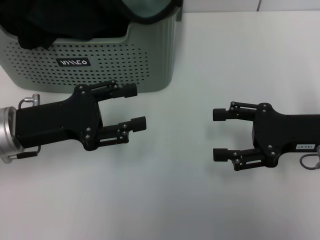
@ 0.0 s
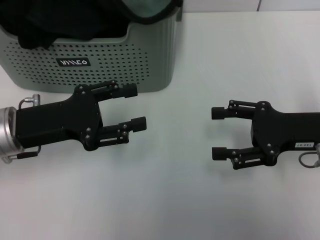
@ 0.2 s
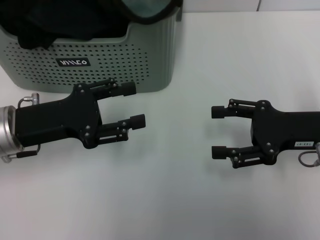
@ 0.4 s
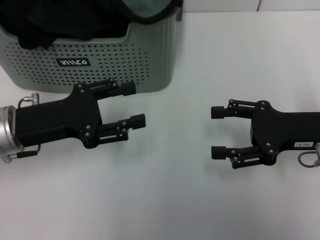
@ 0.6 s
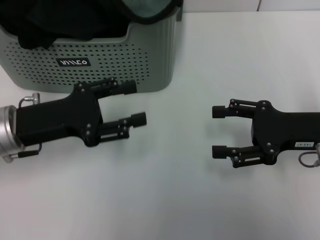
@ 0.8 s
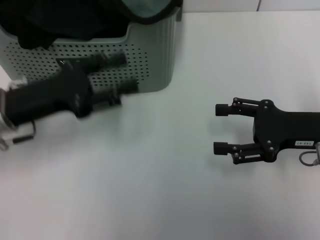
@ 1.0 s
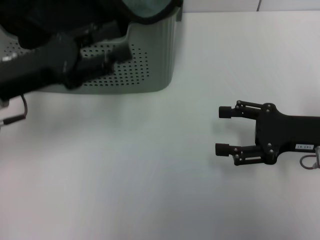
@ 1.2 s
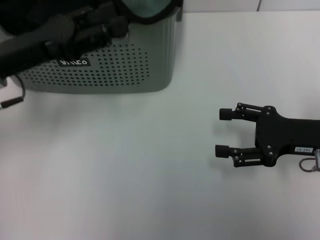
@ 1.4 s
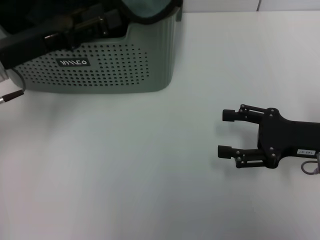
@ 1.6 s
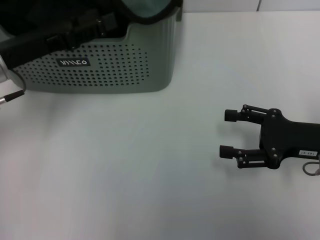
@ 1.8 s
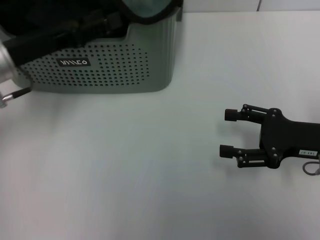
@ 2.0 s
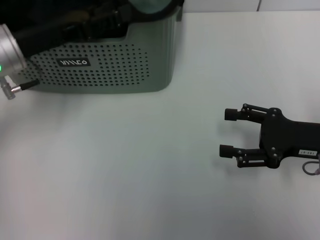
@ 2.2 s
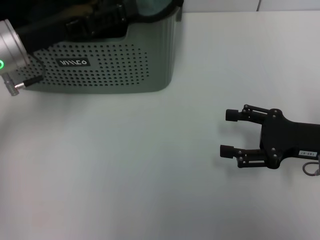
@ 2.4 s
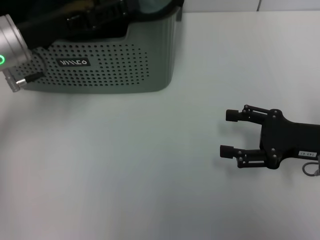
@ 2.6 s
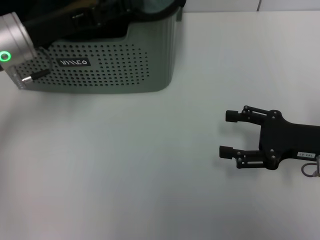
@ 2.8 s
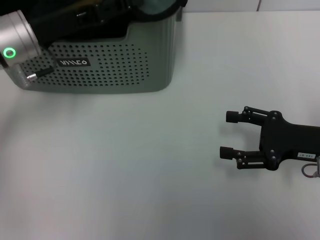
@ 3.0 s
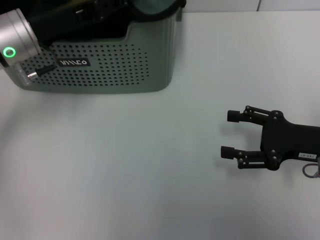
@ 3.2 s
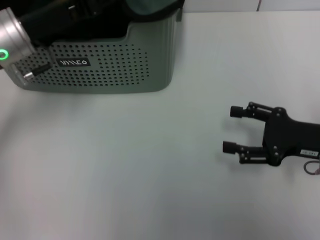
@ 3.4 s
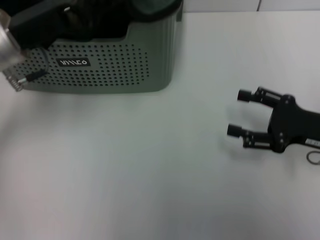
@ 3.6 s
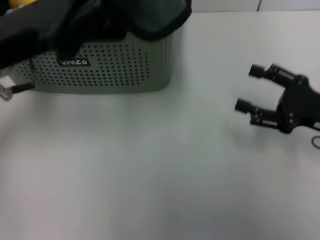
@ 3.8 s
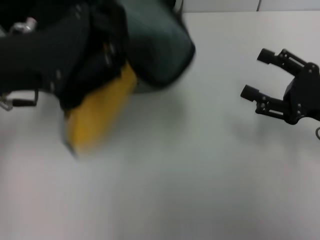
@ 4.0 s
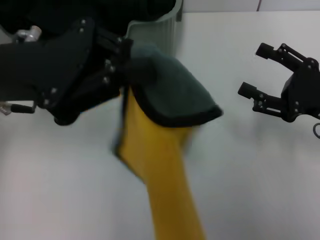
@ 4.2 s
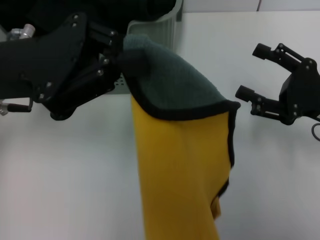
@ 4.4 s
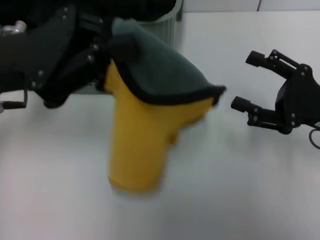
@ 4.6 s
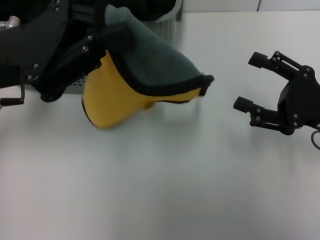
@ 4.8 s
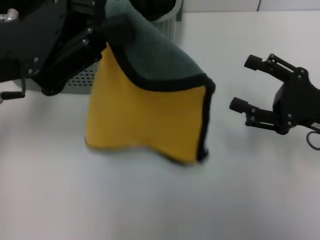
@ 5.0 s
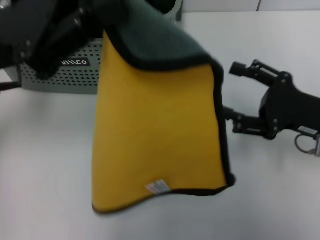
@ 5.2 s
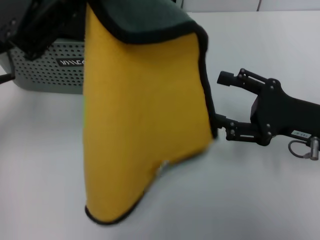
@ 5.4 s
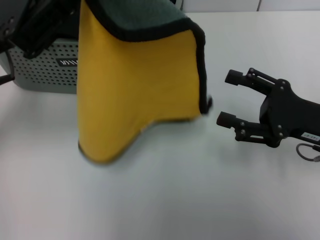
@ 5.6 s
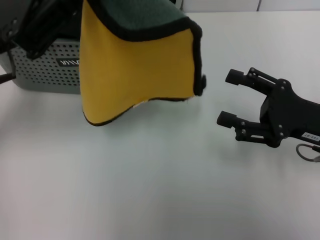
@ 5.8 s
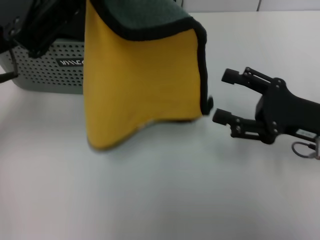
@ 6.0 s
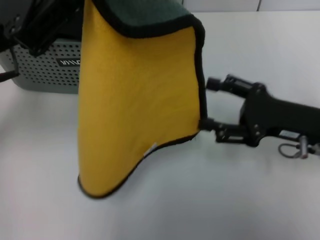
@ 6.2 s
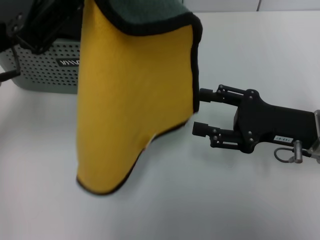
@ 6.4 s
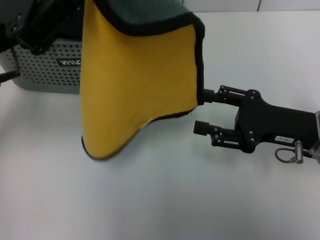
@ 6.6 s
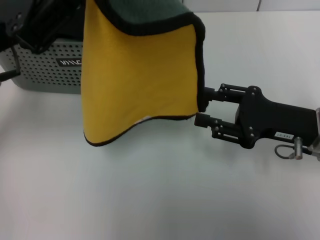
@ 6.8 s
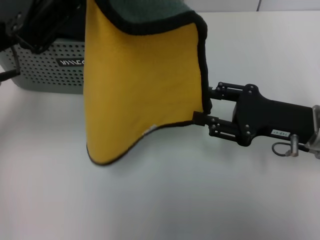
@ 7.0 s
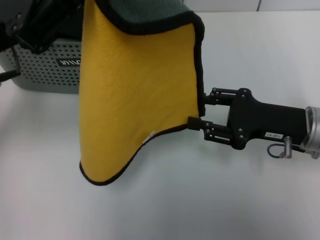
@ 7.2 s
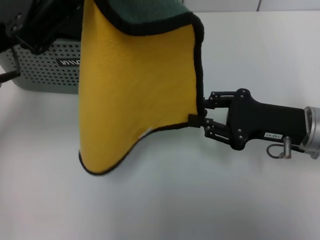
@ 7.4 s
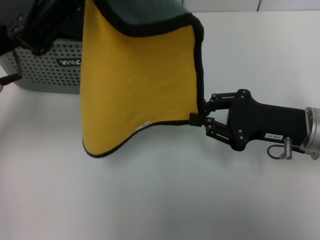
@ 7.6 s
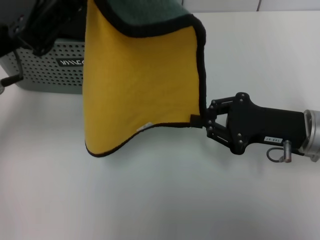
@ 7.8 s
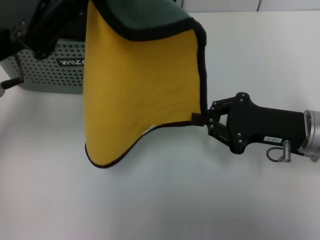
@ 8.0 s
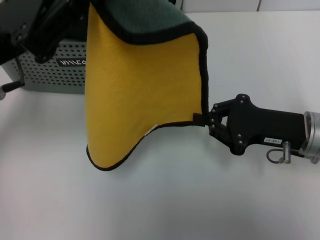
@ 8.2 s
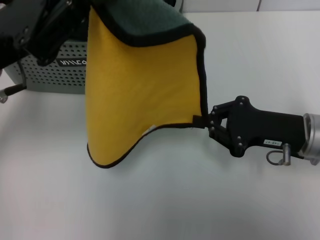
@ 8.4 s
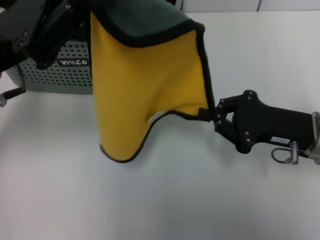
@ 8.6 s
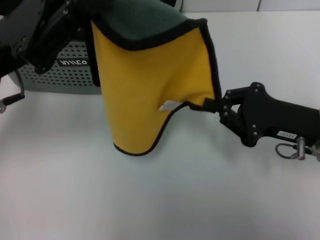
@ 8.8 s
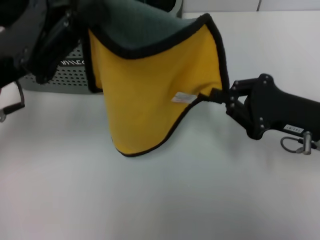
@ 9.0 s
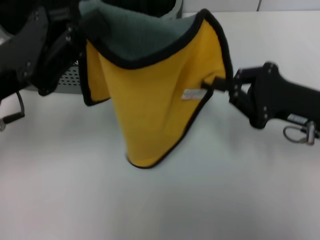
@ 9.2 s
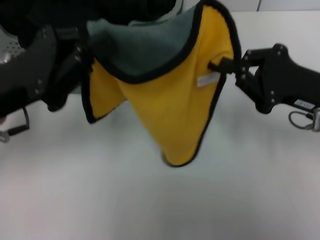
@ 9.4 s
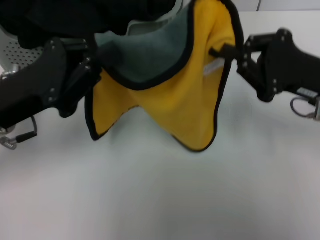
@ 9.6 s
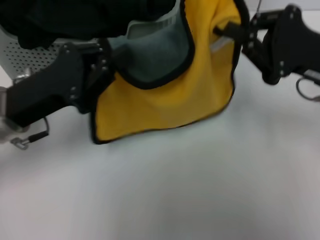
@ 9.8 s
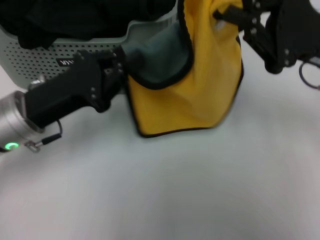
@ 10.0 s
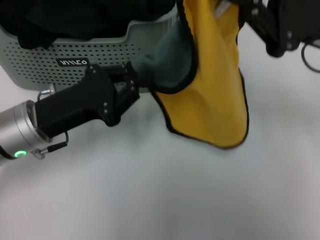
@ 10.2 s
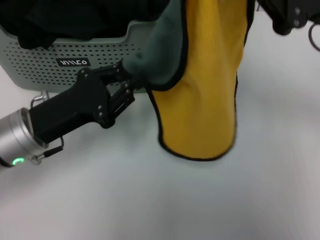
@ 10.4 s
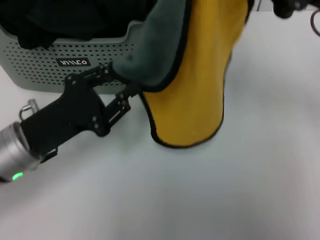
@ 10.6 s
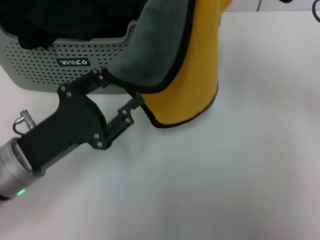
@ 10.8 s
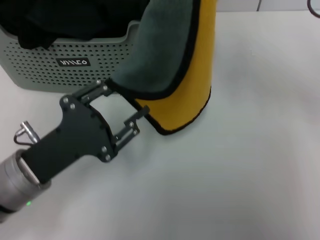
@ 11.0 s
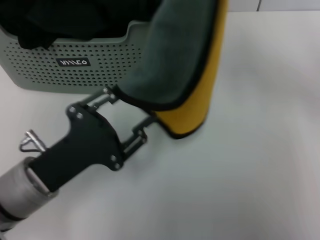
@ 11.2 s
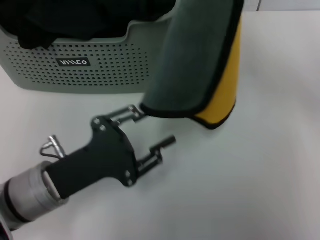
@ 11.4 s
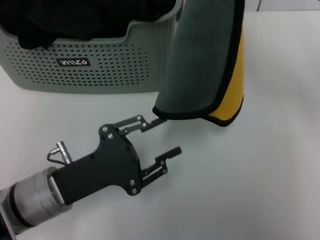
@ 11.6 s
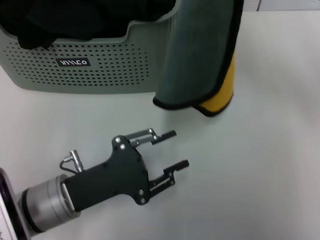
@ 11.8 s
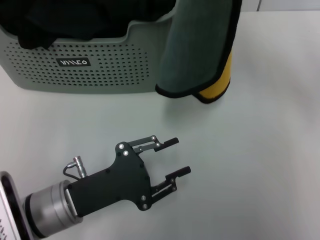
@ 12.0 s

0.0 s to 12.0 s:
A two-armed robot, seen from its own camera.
Task of the whole recording: pick up the towel from the storage box and lay it flat on the table.
Step, 0.0 to 3.2 s: Pick up a towel with the left gripper.
Step, 3.4 to 8.0 s: Spread the towel flat with the left gripper.
0.0 to 1.6 s: The left gripper travels upward by some 5 cm.
1.6 to 3.0 s: The left gripper shifts by roughly 5 cm.
3.0 to 4.4 s: The left gripper shifts about 5 cm backward, and closes.
6.0 to 7.6 s: The right gripper closes.
7.6 to 9.0 s: The right gripper closes up.
9.0 to 10.4 s: The right gripper moves upward, roughly 10 cm. Meanwhile the left gripper is displaced downward by roughly 10 cm.
10.4 to 12.0 s: The left gripper travels backward and downward by roughly 10 cm, and opens its fingers.

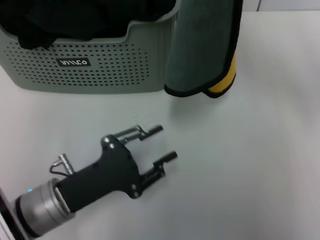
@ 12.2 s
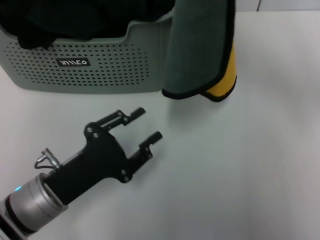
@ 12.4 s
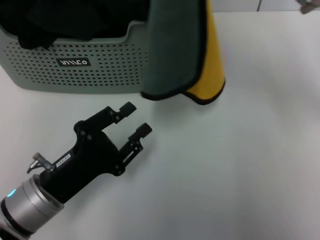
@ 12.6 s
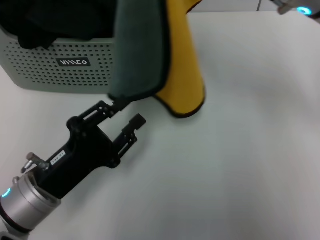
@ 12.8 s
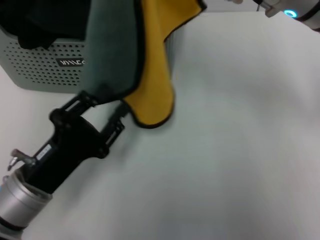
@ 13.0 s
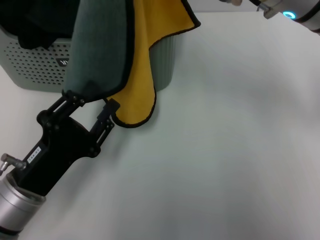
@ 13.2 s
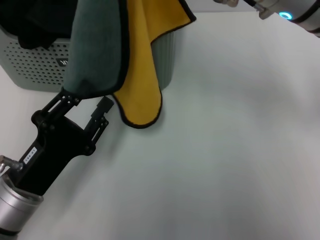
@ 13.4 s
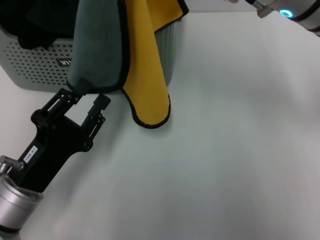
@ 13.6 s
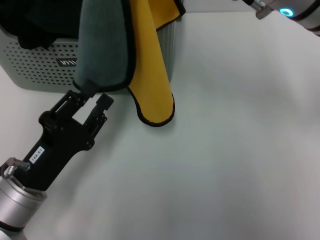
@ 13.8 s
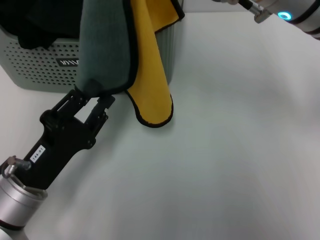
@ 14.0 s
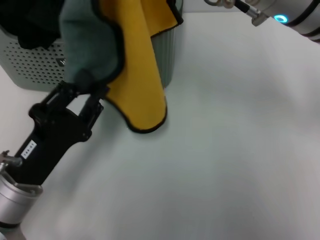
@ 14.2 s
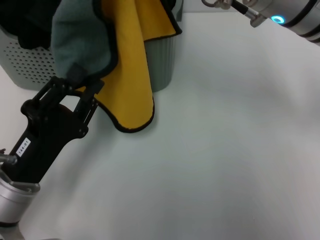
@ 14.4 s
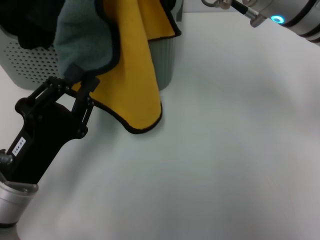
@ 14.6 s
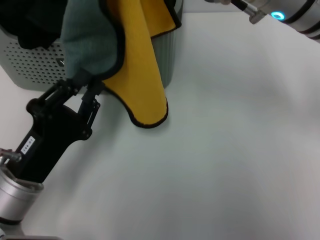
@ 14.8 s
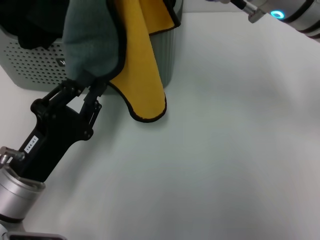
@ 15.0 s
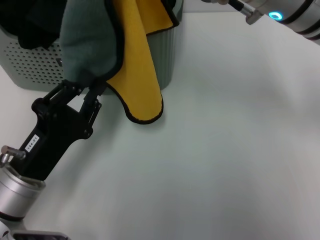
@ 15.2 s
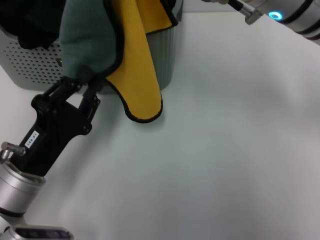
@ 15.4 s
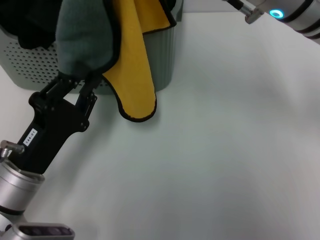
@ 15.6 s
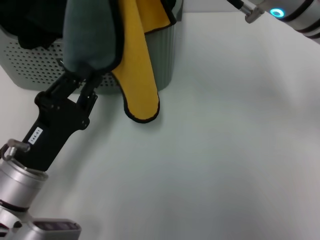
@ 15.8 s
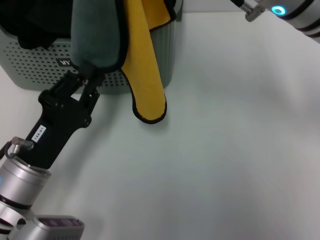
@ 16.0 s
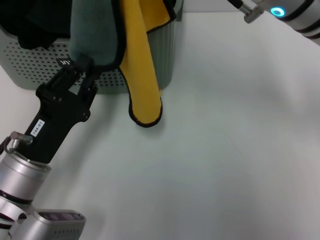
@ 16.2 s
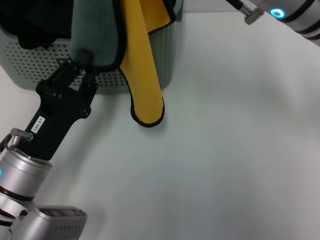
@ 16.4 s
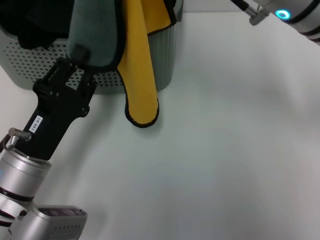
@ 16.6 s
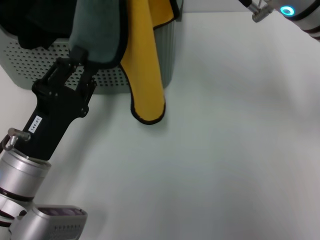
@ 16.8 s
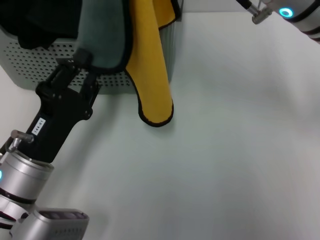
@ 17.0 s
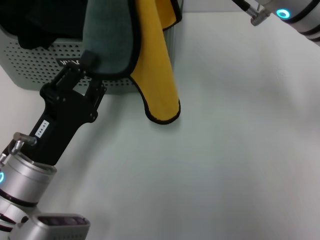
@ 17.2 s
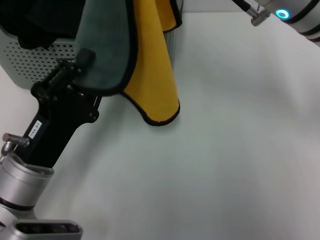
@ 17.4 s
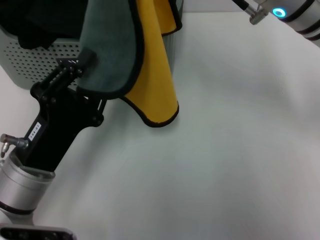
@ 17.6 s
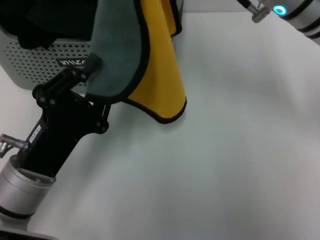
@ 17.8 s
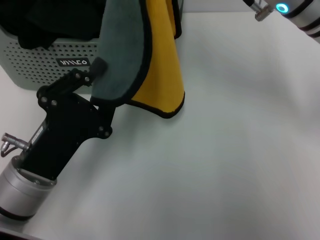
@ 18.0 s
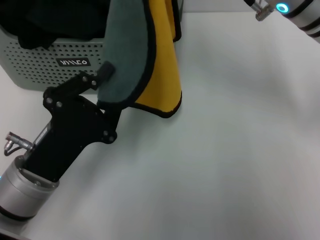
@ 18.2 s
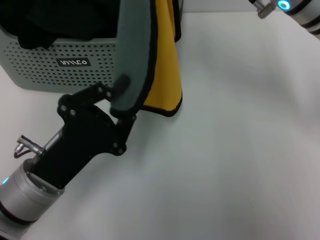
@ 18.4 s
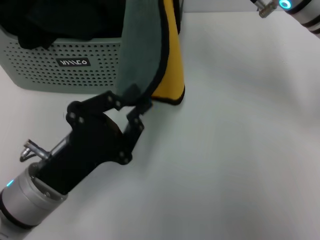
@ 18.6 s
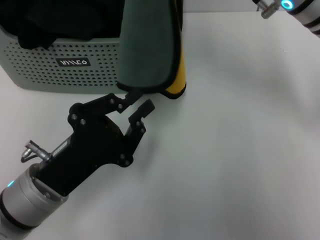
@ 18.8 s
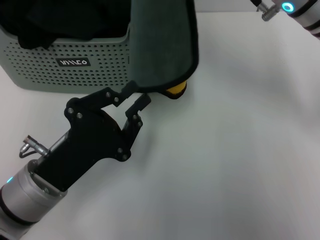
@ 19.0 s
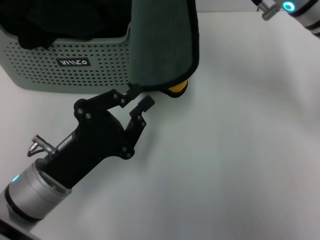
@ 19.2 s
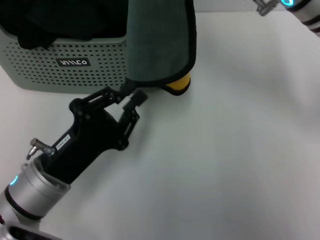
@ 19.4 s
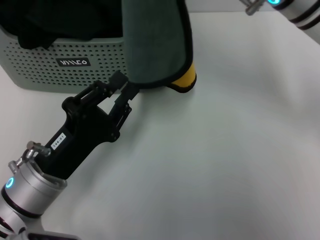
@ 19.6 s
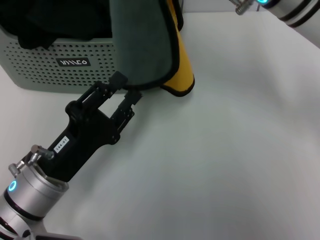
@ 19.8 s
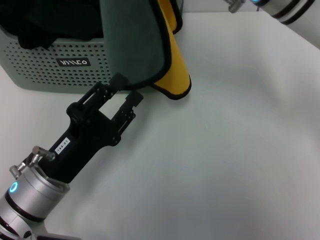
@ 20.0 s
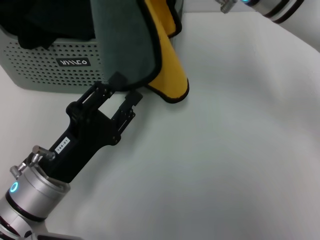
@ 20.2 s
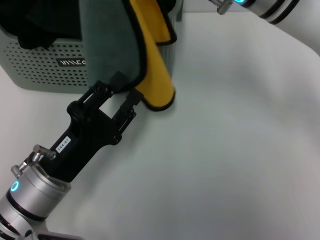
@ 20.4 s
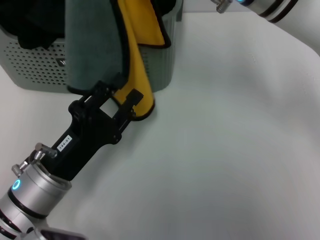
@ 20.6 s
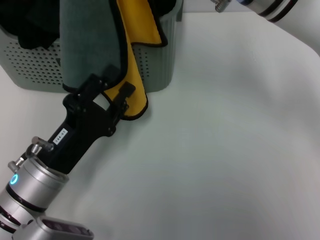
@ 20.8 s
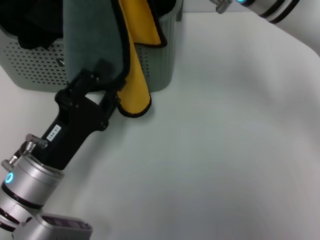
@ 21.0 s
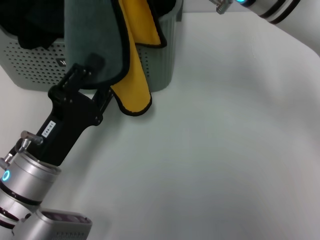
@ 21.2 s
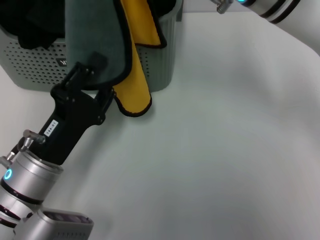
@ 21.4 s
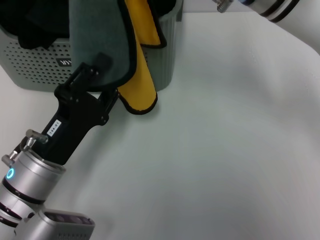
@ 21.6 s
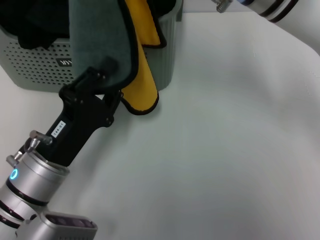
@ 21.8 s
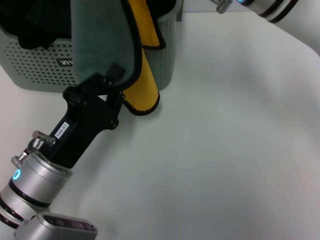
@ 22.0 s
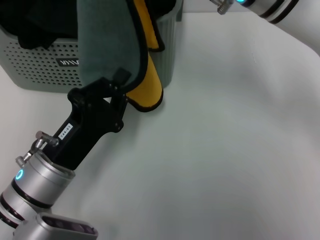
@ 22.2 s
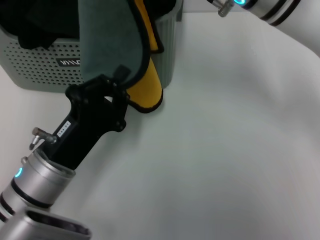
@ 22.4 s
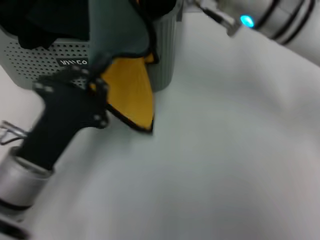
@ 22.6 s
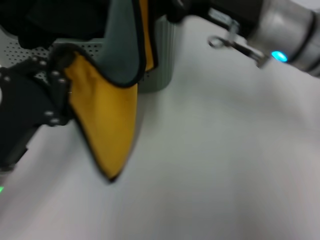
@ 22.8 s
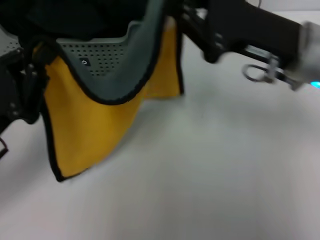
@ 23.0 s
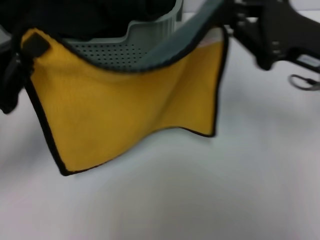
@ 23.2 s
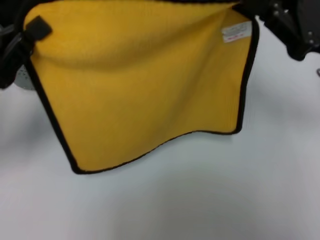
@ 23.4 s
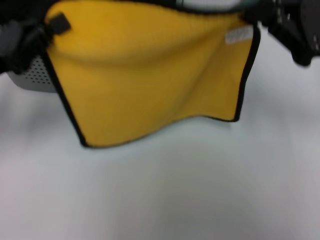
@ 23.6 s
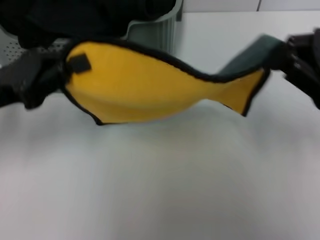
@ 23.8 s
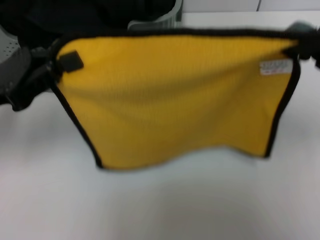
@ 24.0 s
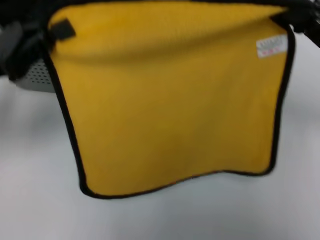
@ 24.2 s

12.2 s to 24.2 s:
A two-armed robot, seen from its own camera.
Task of the whole recording: pick up the towel from the storage box and lay it flat on the table.
12.2 to 13.8 s: The right gripper moves to the left, about 10 cm.
13.8 to 16.6 s: The grippers stay close to where they were, moving slightly.
21.2 to 22.6 s: The left gripper closes.
22.6 to 24.2 s: The left gripper travels to the left, upward and forward by about 15 cm; the right gripper is displaced to the right by some 20 cm.
